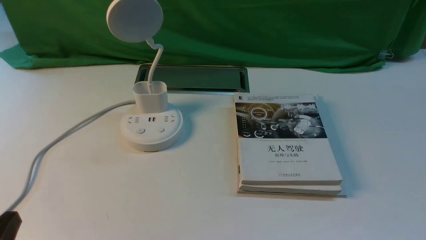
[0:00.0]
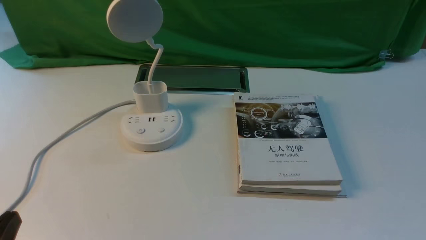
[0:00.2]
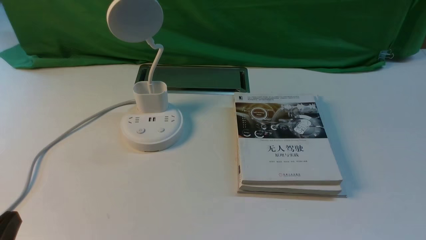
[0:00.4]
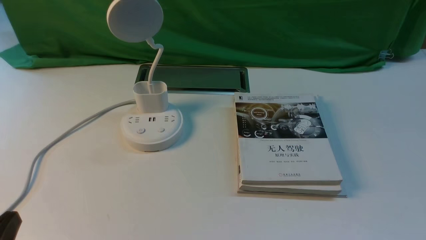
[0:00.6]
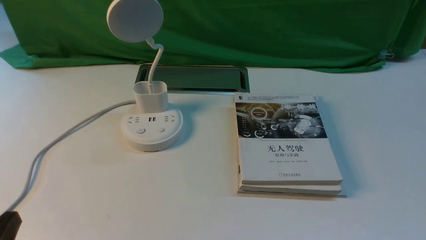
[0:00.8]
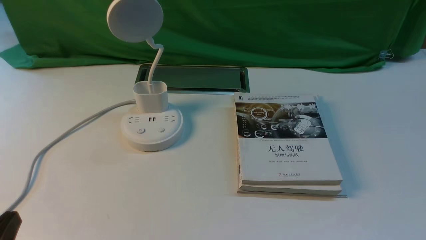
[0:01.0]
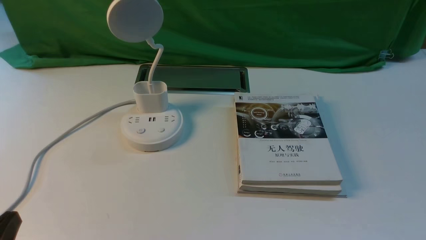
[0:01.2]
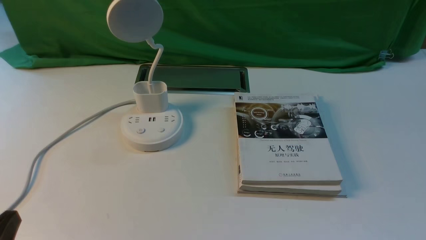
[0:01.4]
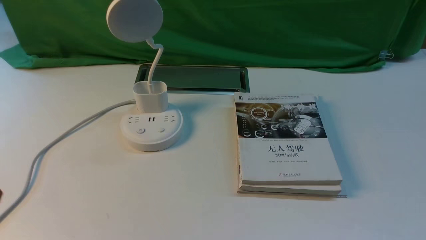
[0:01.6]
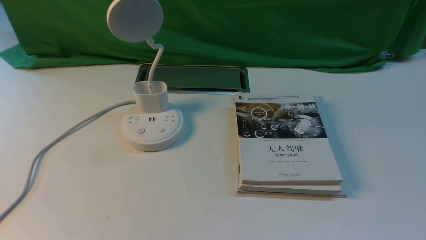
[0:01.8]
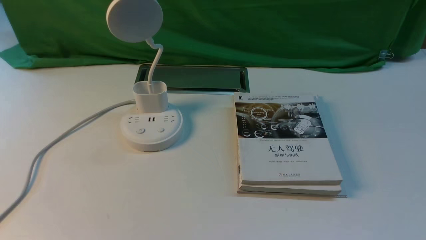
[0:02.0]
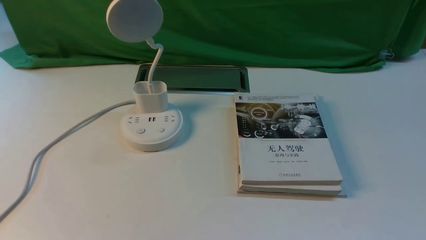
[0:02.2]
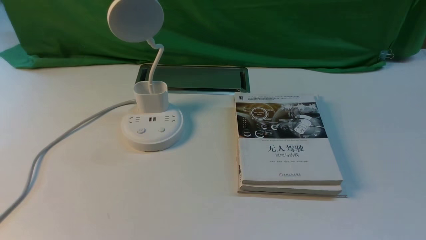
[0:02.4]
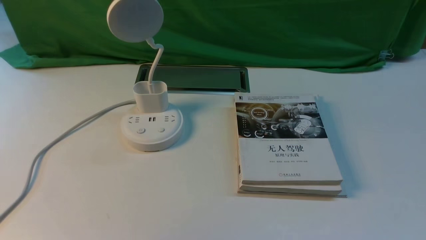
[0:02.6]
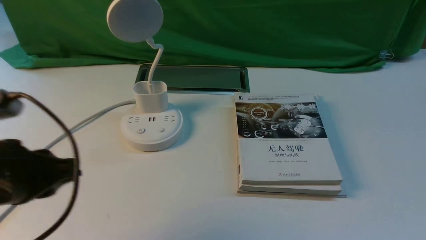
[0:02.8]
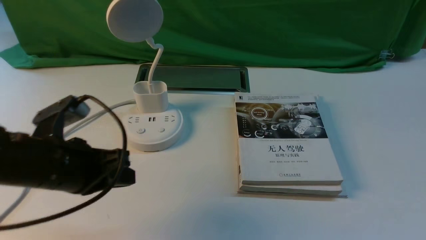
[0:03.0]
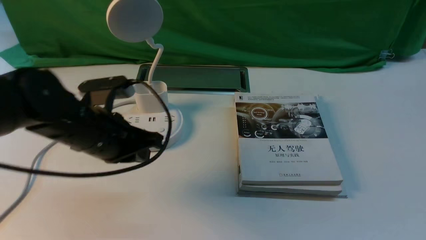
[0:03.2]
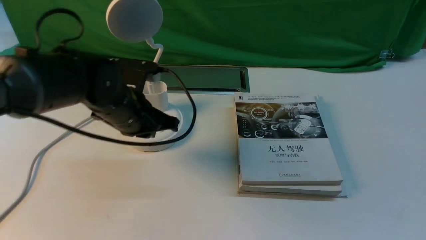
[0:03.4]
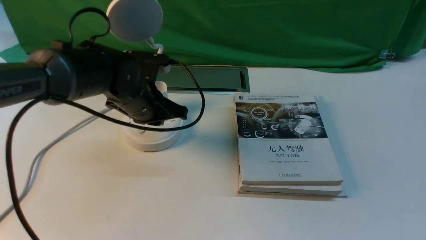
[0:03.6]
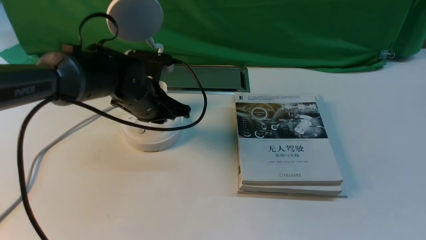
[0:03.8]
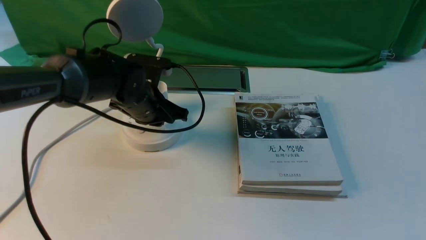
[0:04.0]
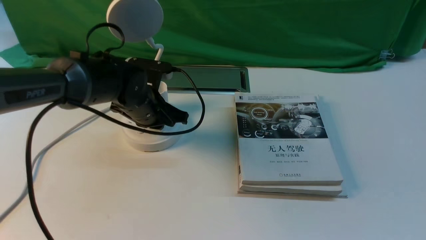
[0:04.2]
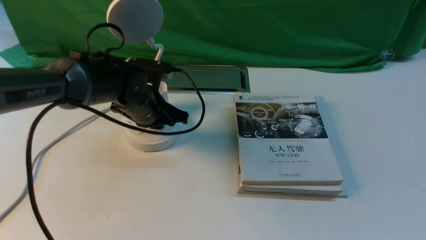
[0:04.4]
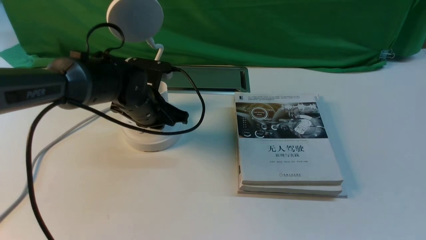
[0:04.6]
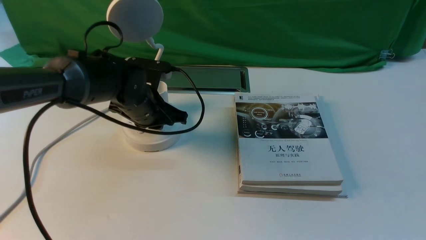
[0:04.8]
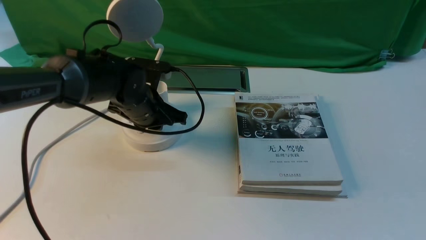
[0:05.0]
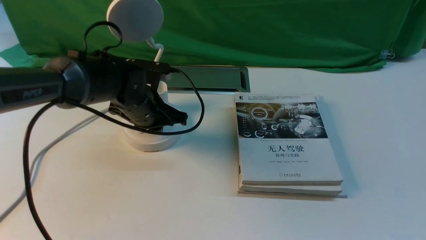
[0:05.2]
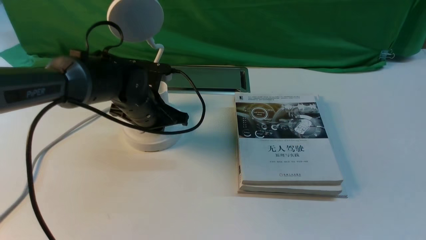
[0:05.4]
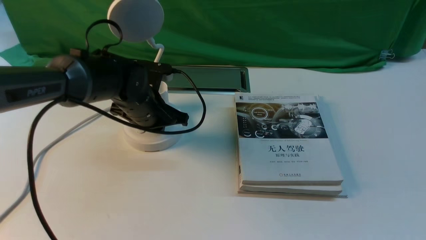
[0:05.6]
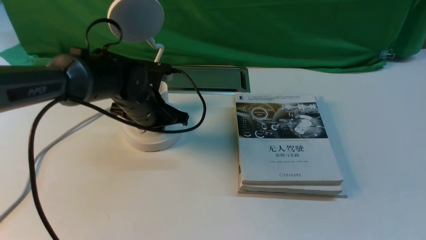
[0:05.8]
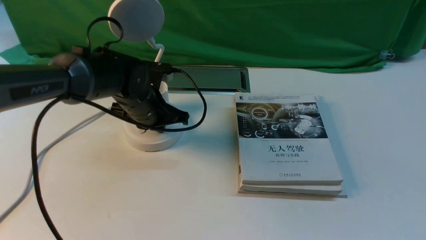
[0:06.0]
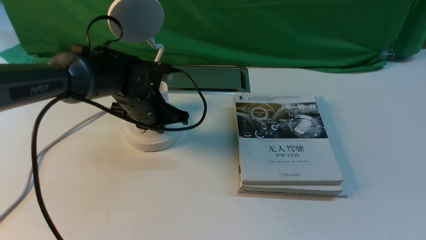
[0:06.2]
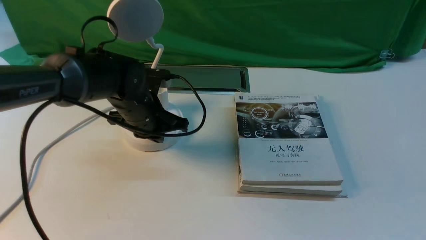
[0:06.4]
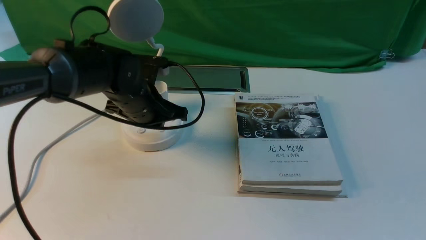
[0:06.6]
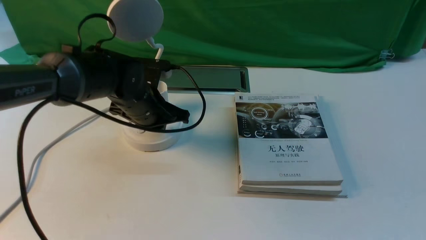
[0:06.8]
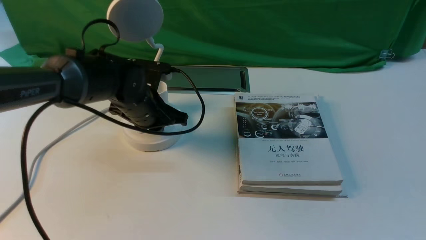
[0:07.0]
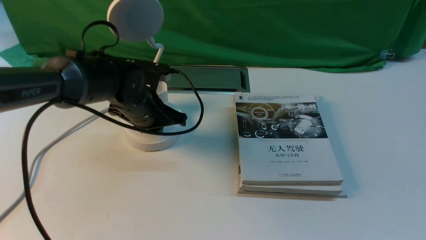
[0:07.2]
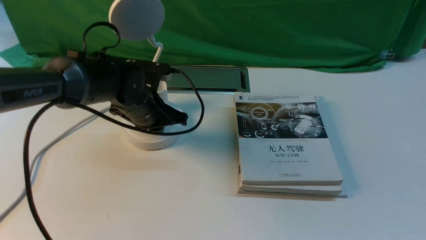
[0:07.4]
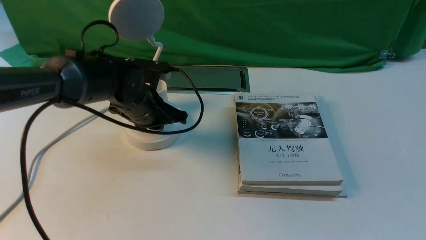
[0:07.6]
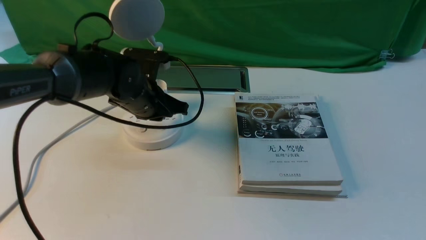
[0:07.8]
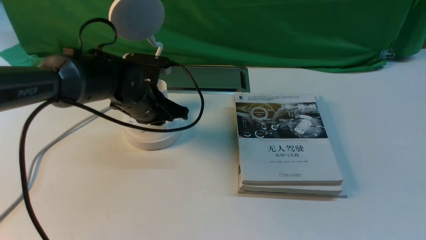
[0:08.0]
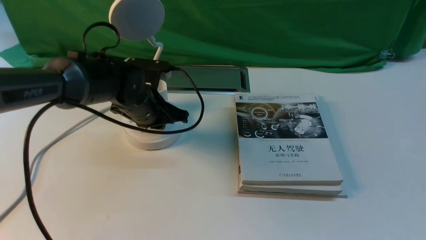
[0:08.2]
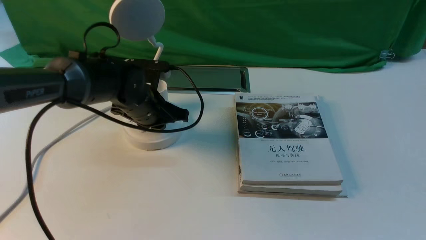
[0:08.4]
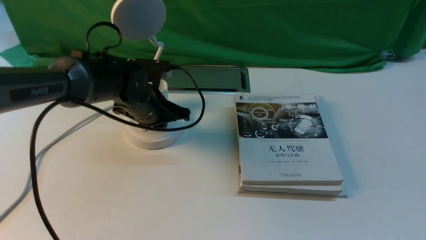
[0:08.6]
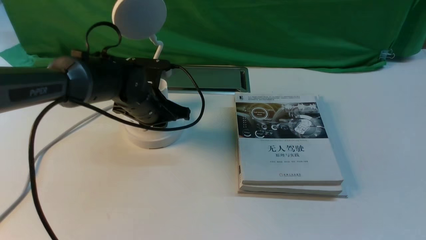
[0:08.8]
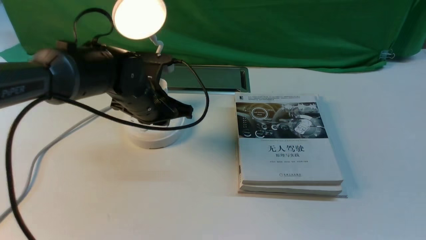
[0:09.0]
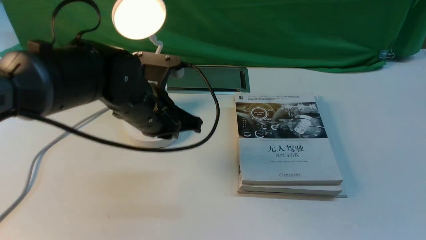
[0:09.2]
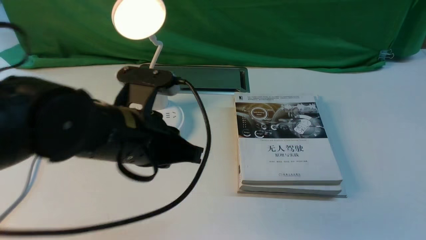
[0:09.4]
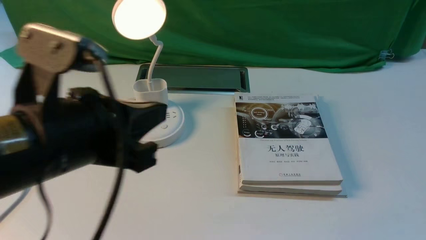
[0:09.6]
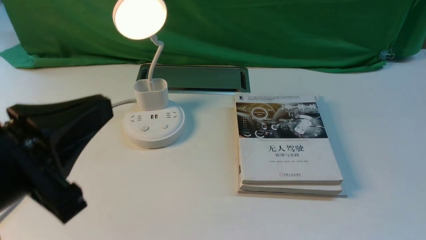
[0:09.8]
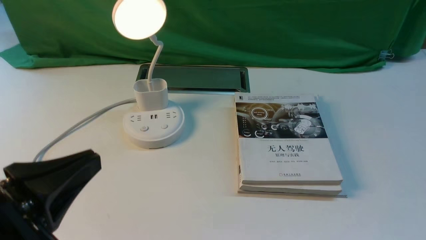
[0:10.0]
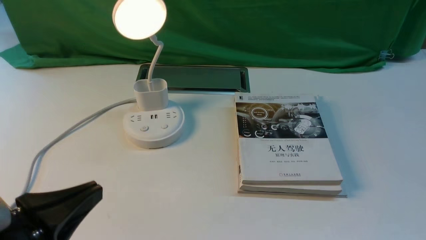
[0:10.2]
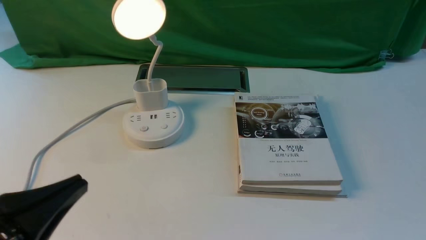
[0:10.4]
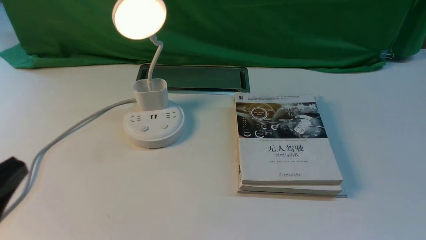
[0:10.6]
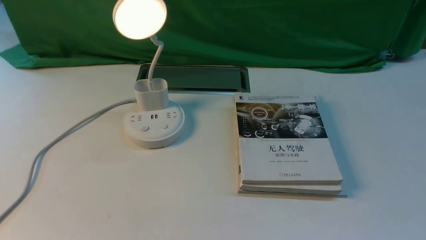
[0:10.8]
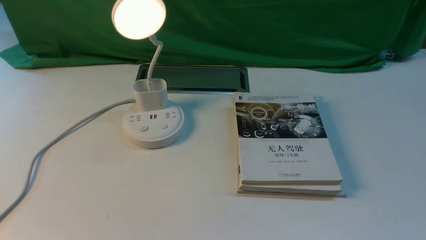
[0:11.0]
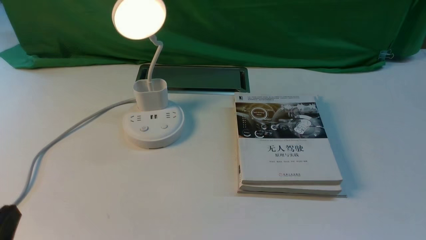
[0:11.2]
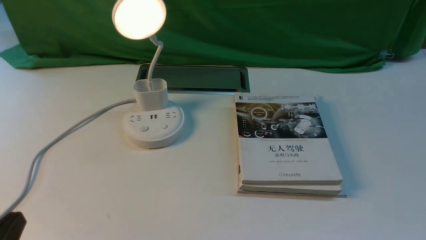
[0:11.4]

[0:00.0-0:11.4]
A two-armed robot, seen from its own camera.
Step, 0:00.0 to 0:09.2: use the left arm to press the button switch on the lamp holder.
0:01.4 to 0:02.8: The left gripper travels upward and forward by approximately 15 cm.
0:02.8 to 0:04.2: The left gripper heads forward, downward and to the right, covering approximately 30 cm.
0:04.2 to 0:05.6: Both grippers stay about where they are.
0:05.6 to 0:07.2: The grippers move only a little.
0:07.2 to 0:08.6: Both grippers stay put.
0:08.6 to 0:10.0: The left gripper shifts about 35 cm backward and upward.
0:10.0 to 0:11.4: The left gripper shifts roughly 15 cm downward and to the left.

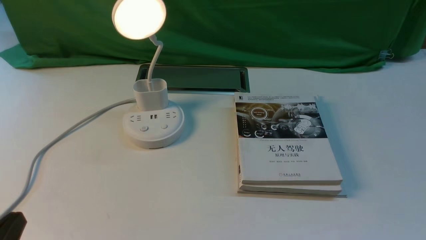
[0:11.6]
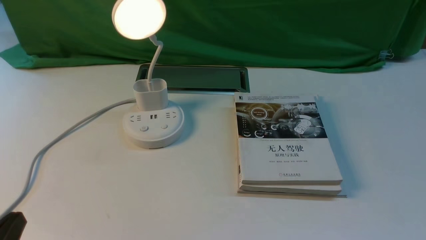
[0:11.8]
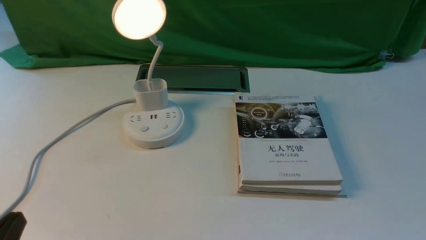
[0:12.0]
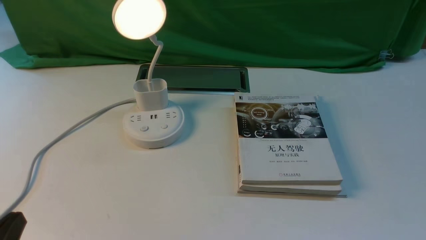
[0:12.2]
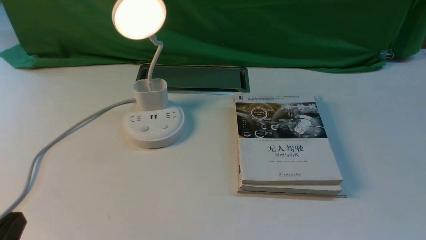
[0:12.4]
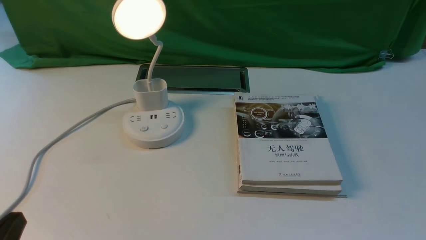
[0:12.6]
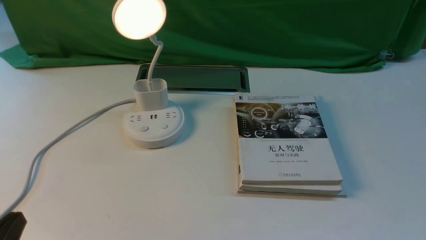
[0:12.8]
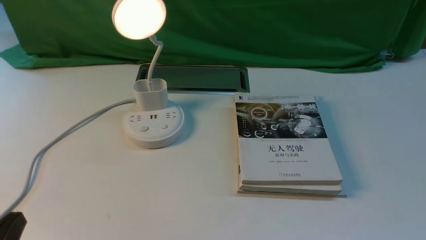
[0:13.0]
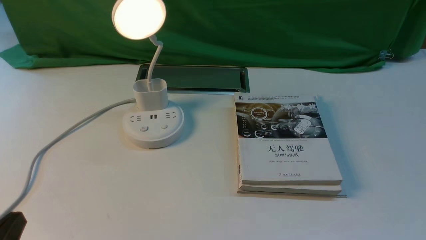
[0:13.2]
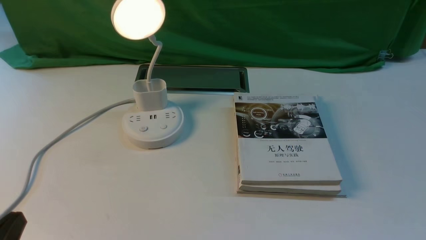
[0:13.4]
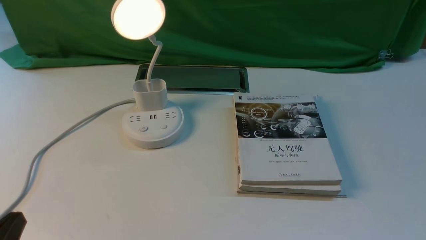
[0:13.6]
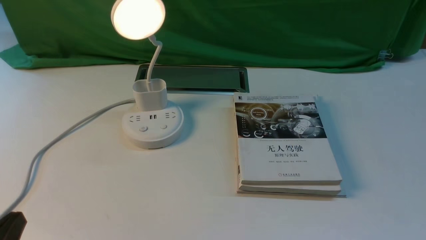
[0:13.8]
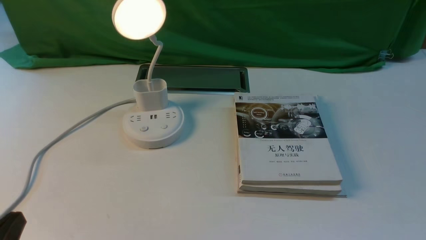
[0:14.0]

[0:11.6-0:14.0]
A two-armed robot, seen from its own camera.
0:11.6 to 0:14.0: Both grippers stay put.

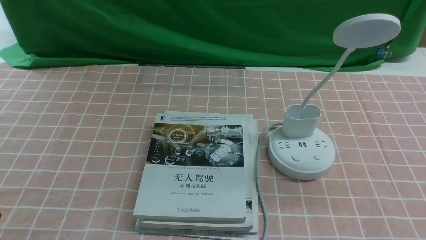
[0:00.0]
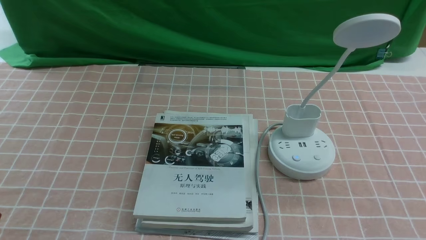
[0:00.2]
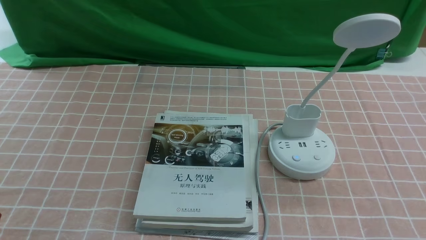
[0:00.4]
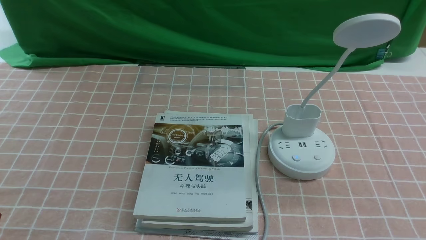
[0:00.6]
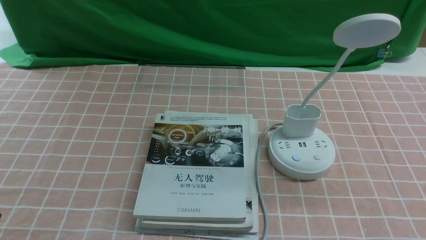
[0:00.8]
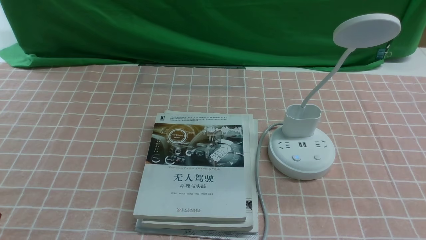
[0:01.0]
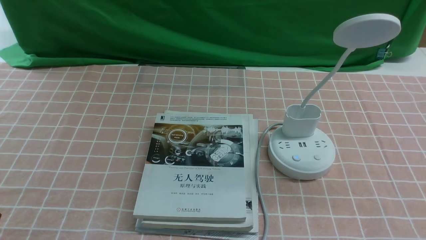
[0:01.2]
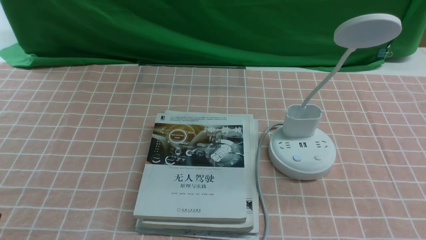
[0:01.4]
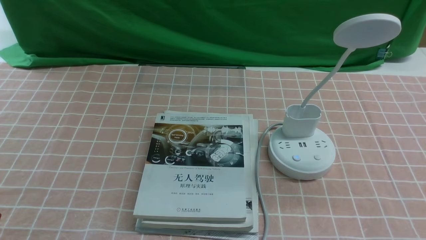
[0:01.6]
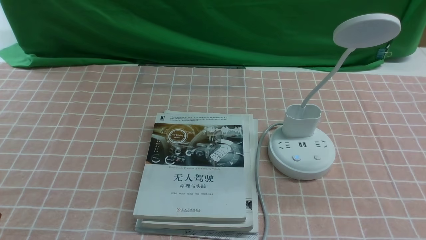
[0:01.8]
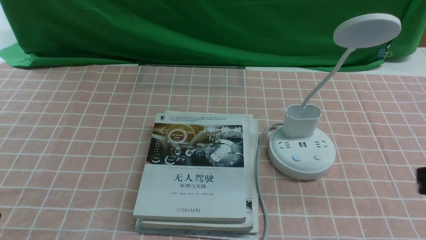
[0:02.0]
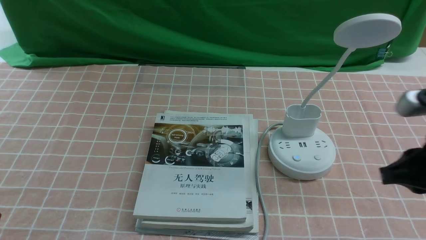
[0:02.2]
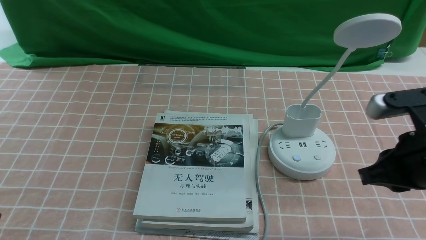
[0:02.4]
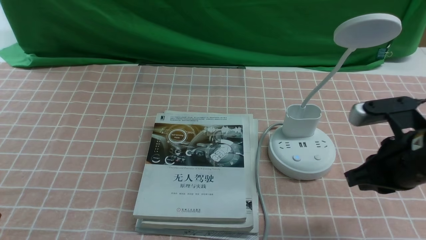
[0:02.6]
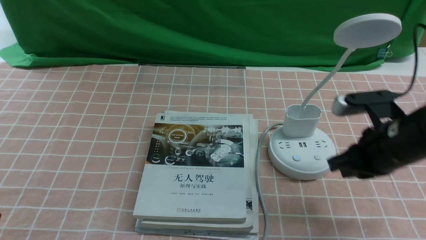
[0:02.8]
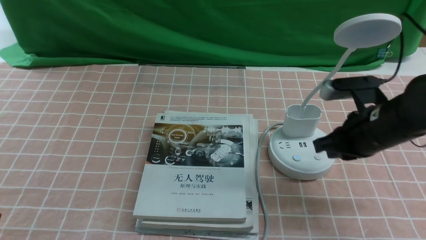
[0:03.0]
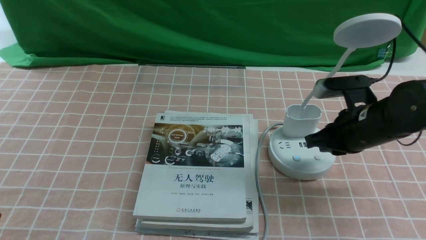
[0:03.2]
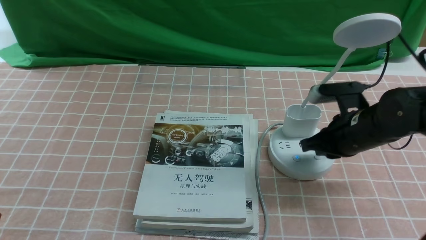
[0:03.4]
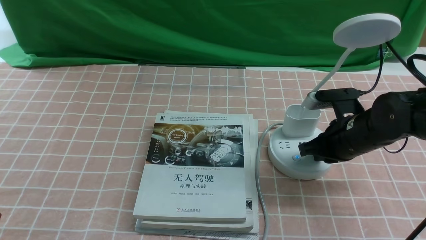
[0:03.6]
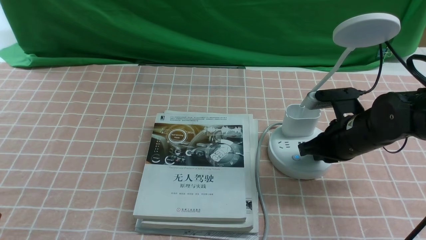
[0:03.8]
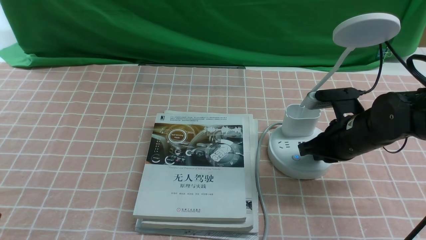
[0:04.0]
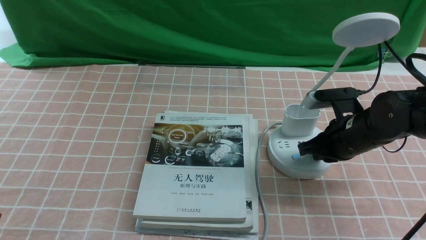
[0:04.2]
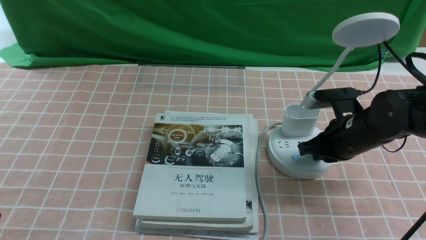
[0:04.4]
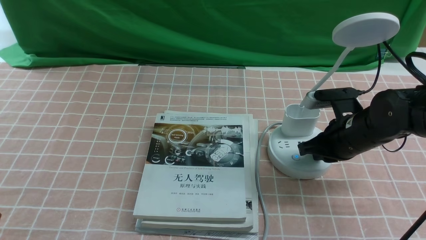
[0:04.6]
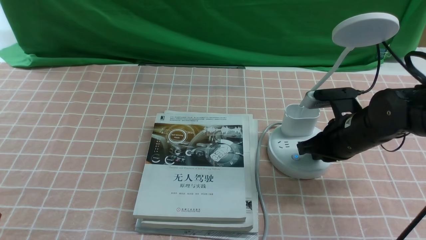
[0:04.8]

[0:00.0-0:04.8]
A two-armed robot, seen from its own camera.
0:01.6 to 0:03.2: The right gripper travels forward and to the left by approximately 25 cm, and closes its fingers.
0:03.2 to 0:04.8: The grippers make only small movements.
